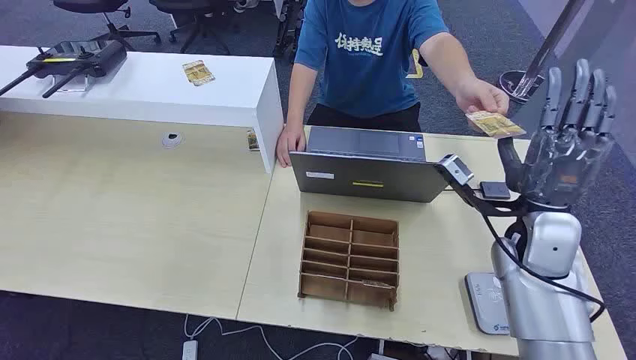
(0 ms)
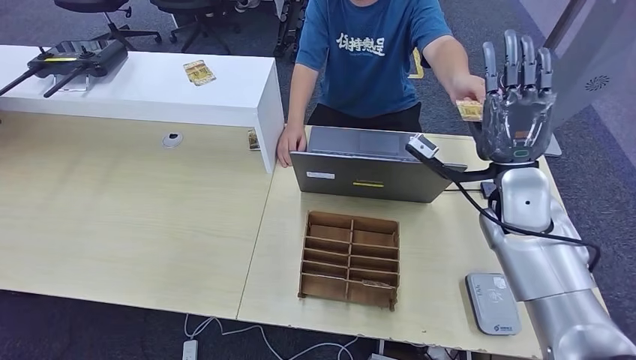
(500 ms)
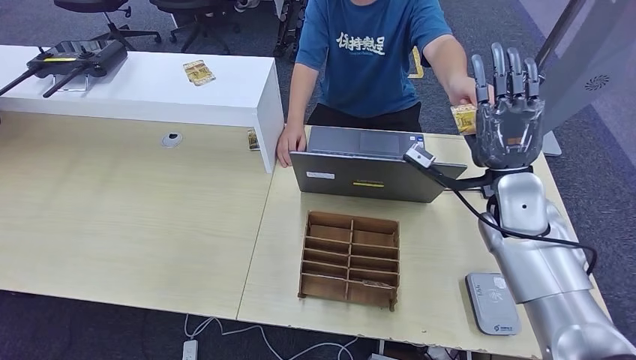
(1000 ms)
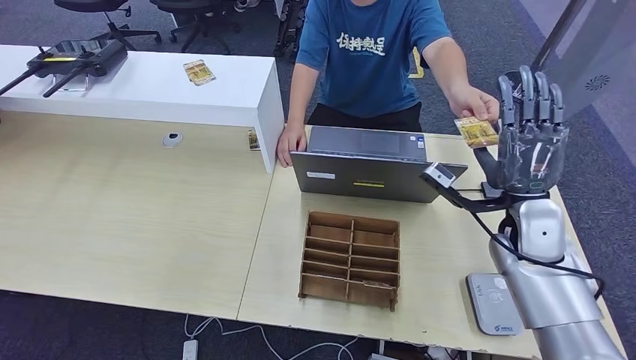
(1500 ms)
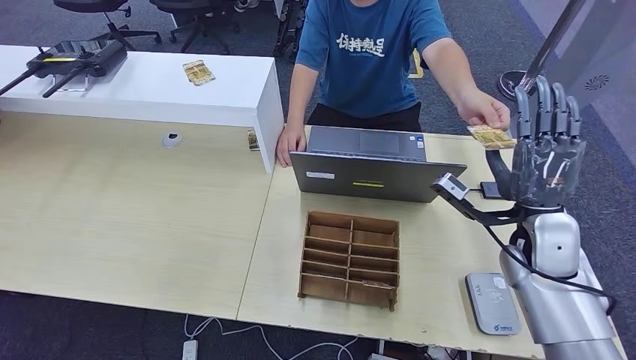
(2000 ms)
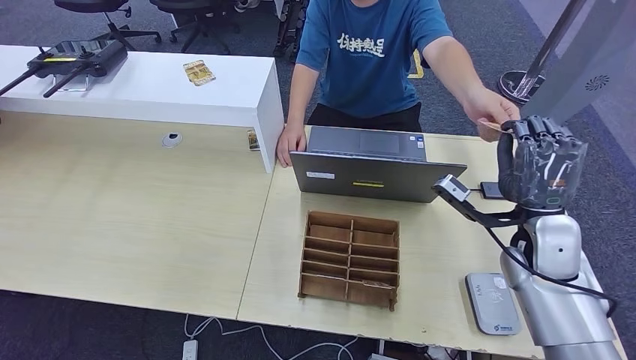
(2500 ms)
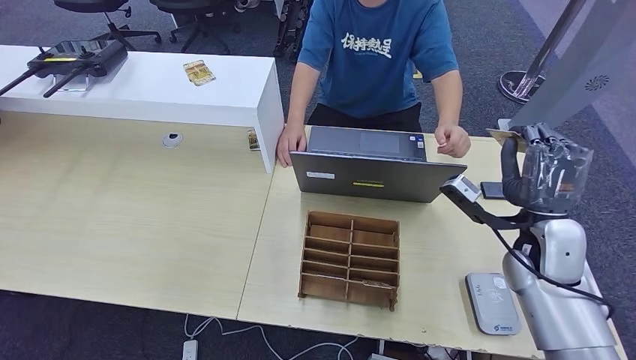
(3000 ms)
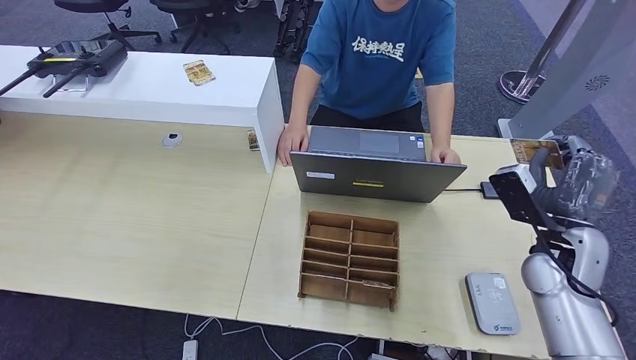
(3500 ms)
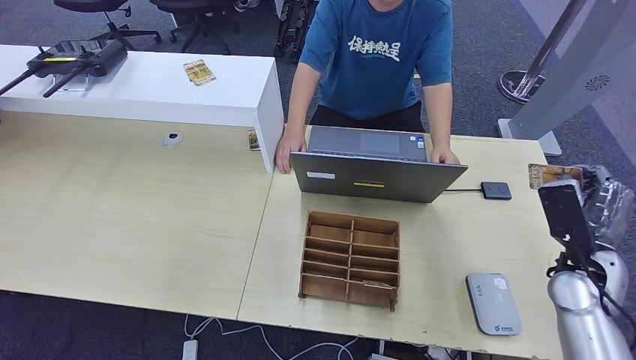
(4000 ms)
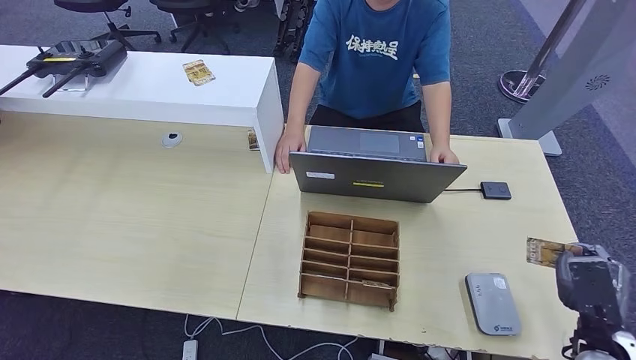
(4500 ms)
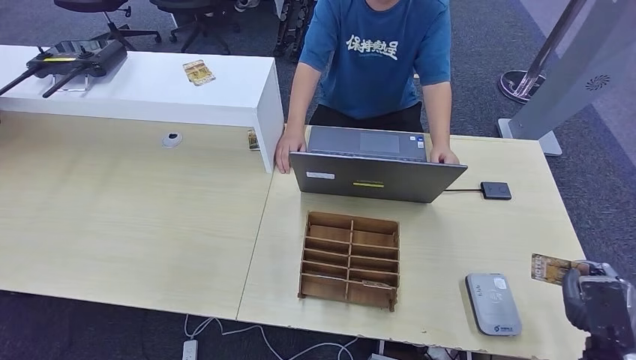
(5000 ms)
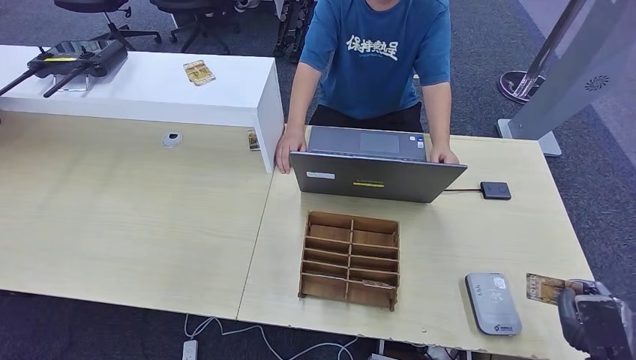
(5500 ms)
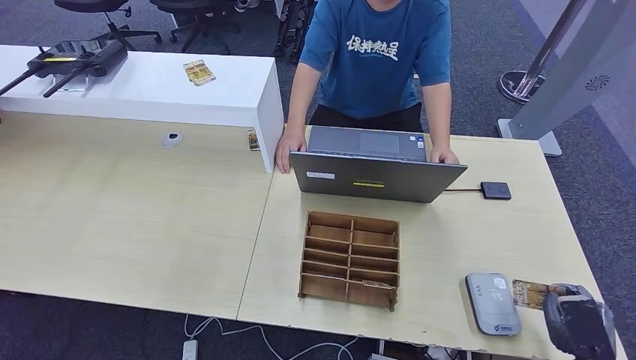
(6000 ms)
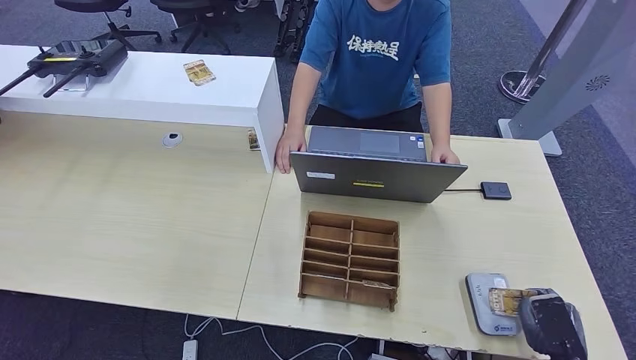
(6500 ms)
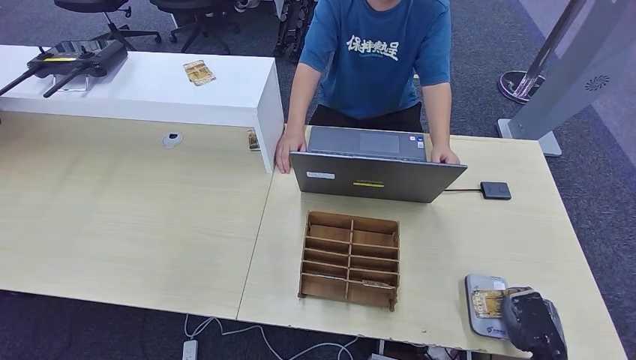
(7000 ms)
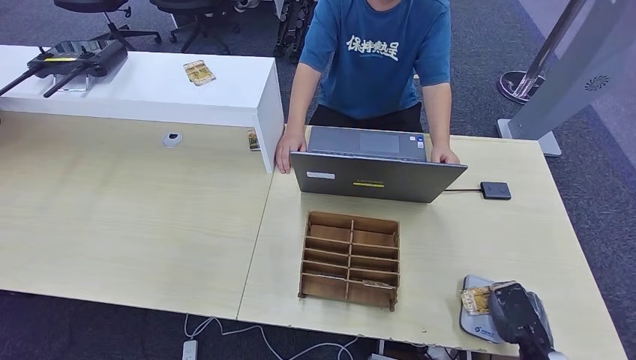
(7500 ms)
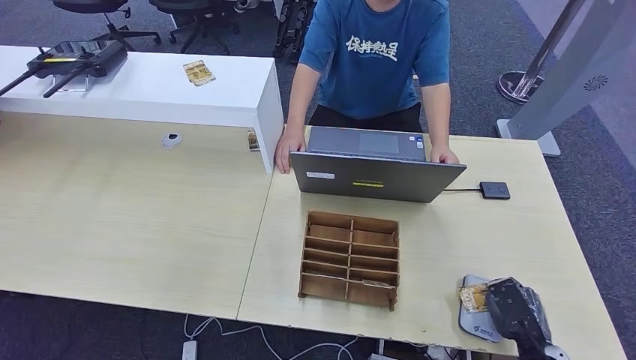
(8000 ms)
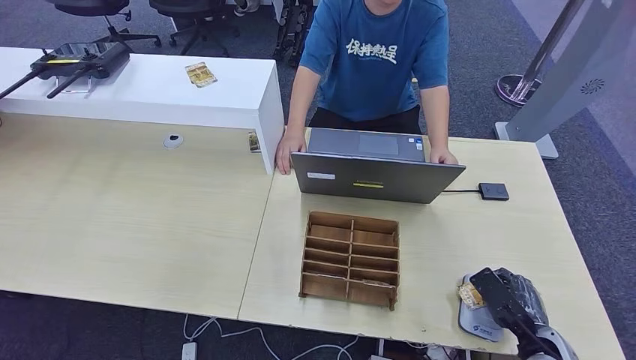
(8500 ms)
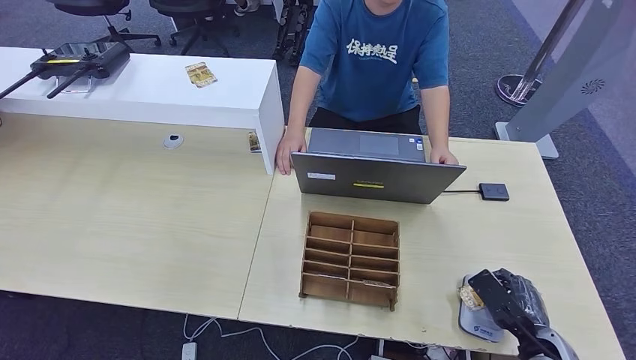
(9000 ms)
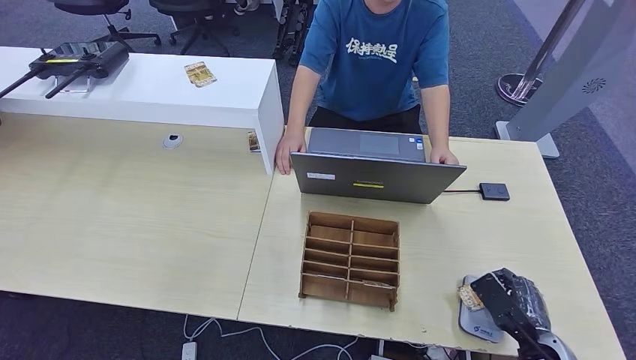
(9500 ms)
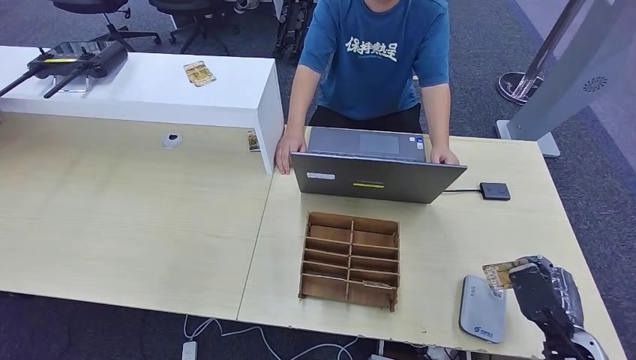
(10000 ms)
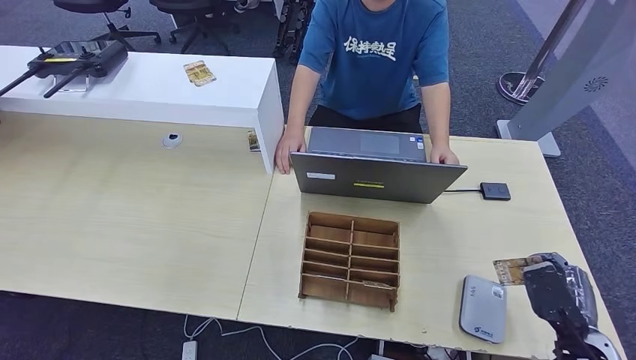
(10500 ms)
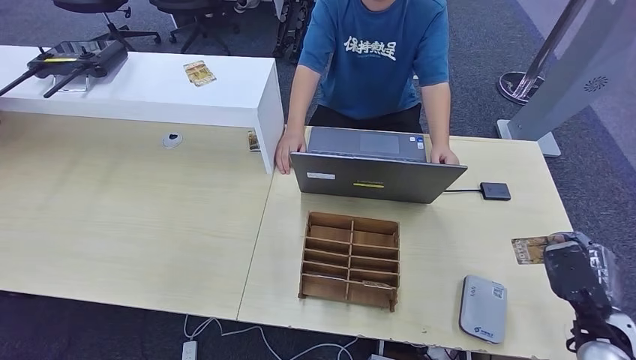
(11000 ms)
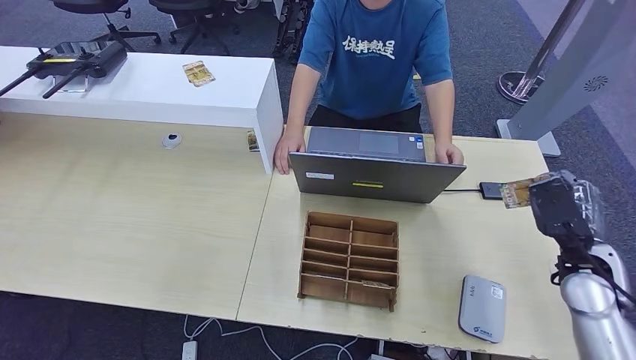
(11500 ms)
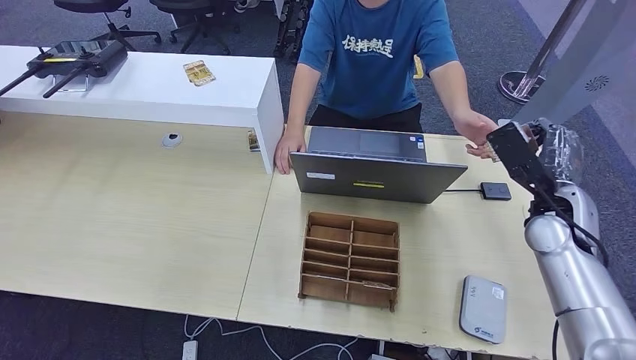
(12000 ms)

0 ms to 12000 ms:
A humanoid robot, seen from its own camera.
Step, 0 ms to 3000 ms: Take the ID card from the person's hand.
Step, 4000 ms to 11500 ms: Place the ID card on the card reader.
2000 ms to 4000 ms: The right hand travels to the right and downward by about 10 cm.
4000 ms to 6000 ms: The right hand moves backward and downward, approximately 20 cm.
6000 ms to 8000 ms: The right hand heads to the left, covering roughly 5 cm.
8000 ms to 10000 ms: The right hand shifts by about 5 cm.
10000 ms to 12000 ms: The right hand heads forward and upward, covering approximately 25 cm.

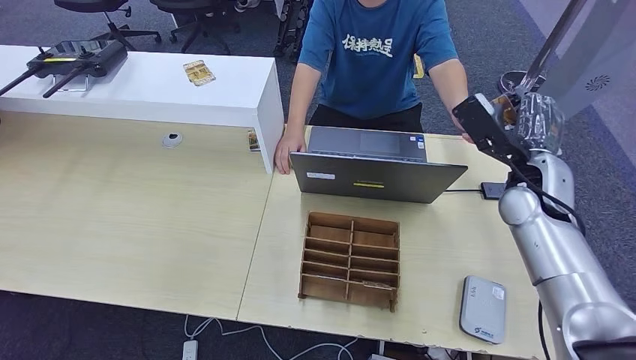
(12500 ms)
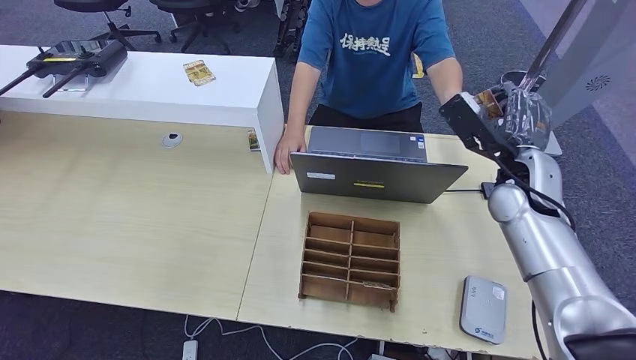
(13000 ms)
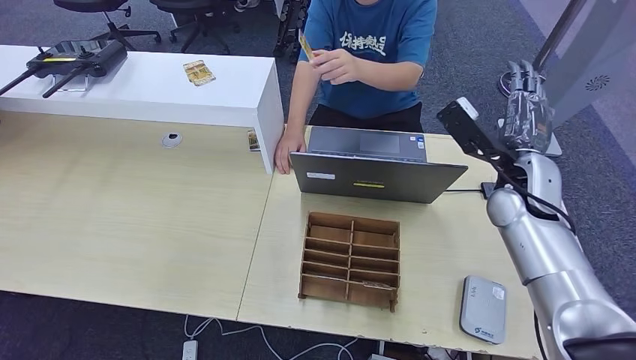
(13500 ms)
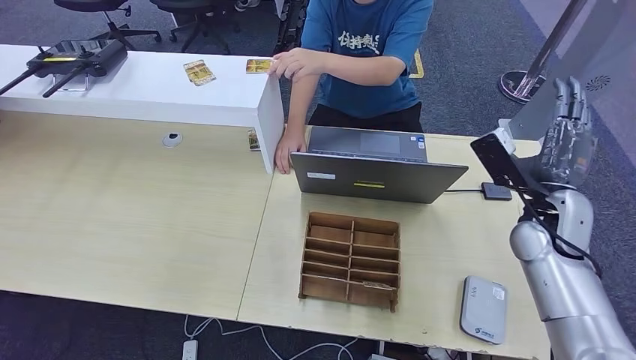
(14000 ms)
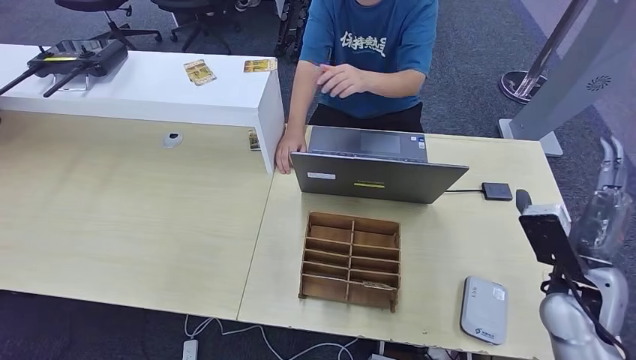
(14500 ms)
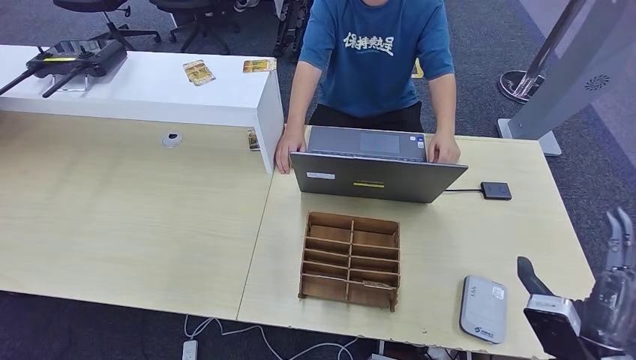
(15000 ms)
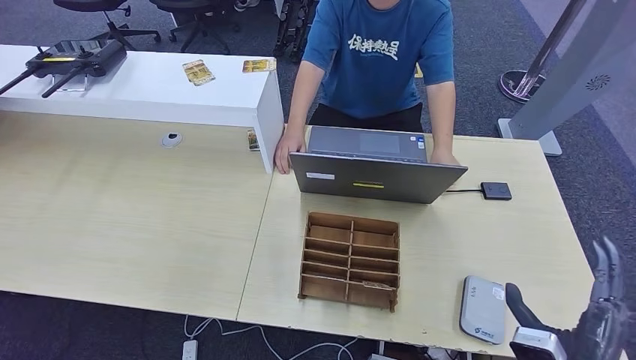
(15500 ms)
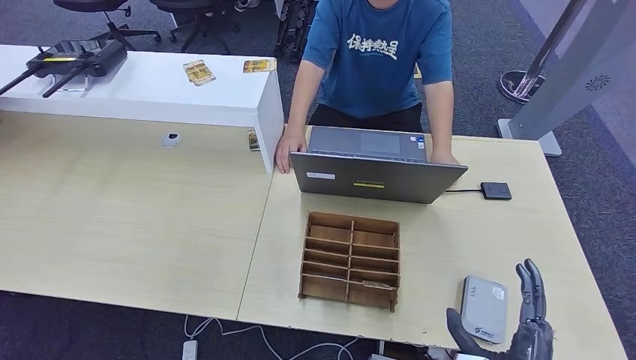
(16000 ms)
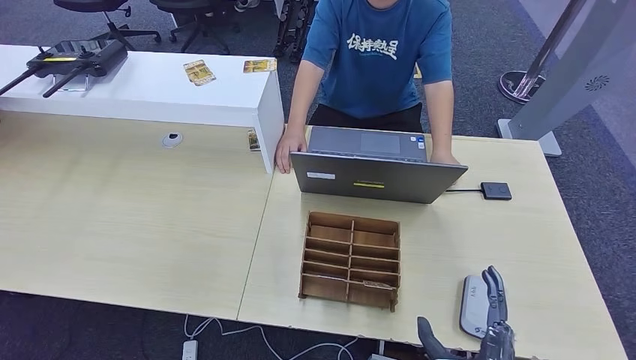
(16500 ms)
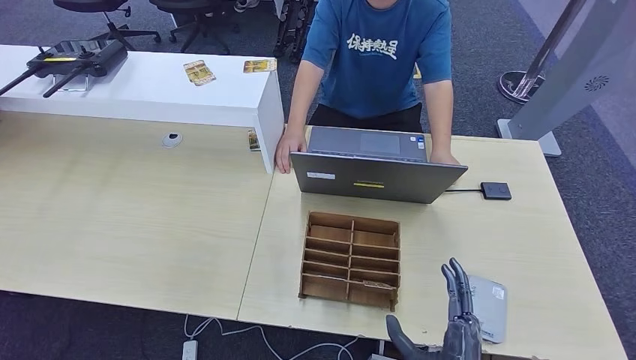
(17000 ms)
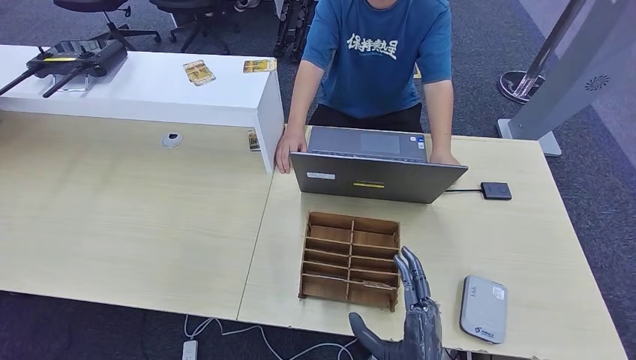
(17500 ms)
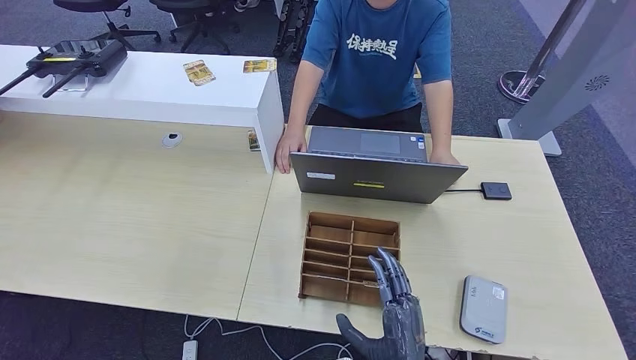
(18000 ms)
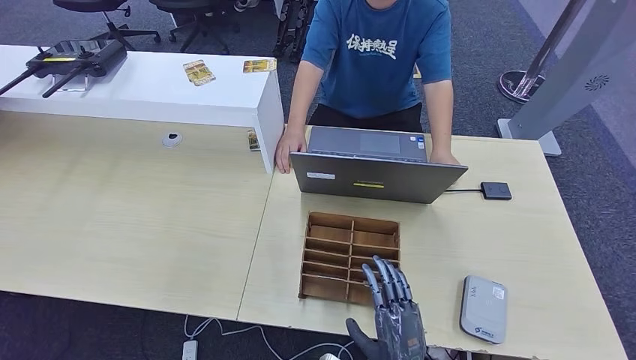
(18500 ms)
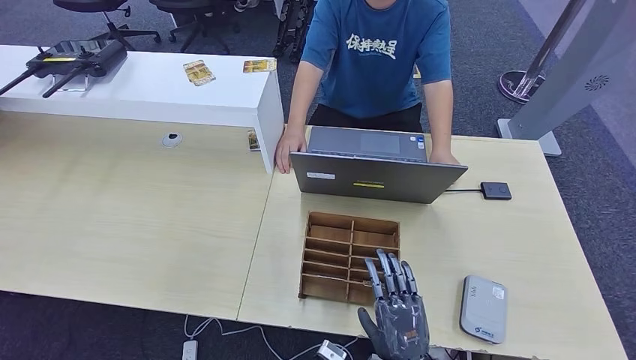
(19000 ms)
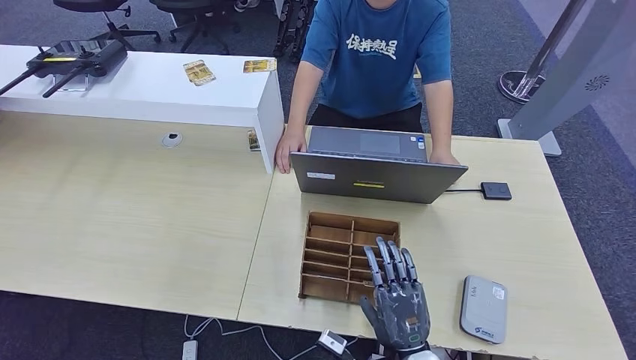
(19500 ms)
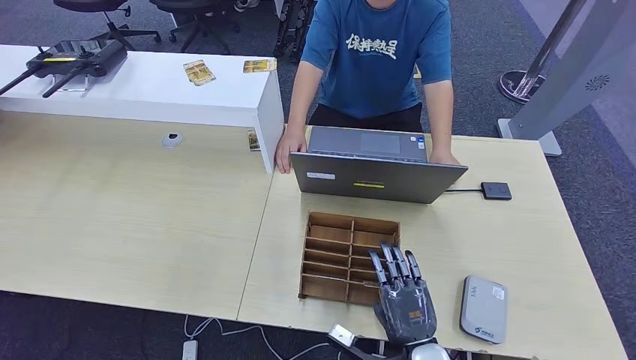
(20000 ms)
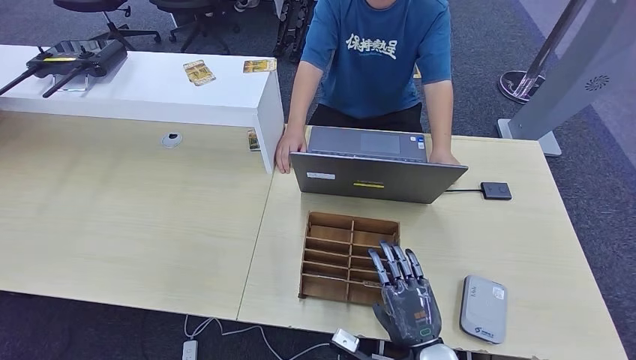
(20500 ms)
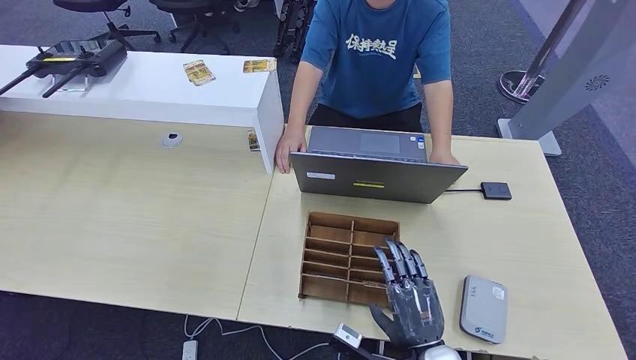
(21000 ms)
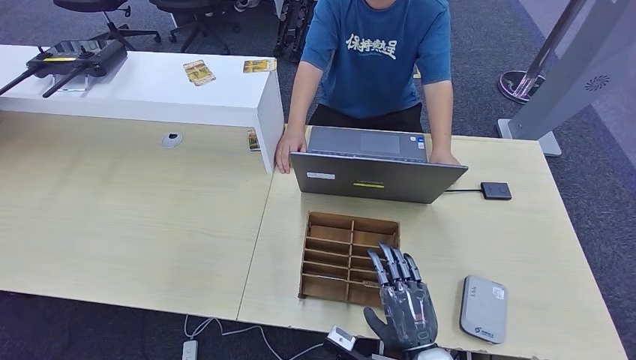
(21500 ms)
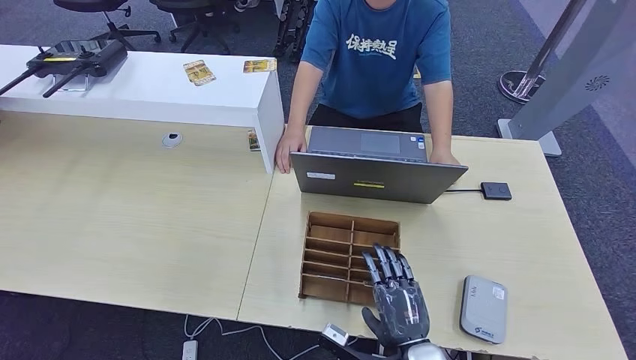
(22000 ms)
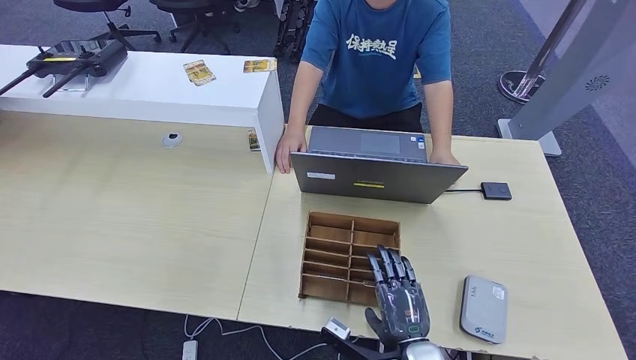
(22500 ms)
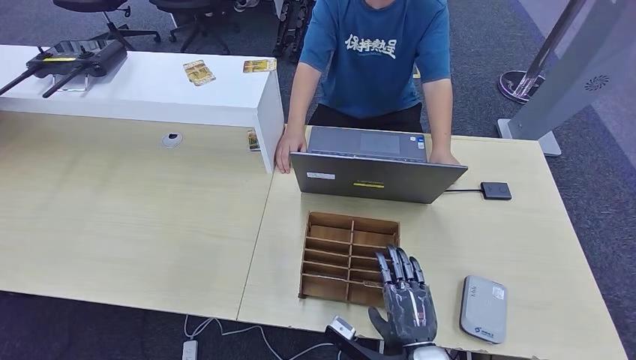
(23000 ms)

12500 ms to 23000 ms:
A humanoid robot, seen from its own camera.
Step, 12500 ms to 14000 ms: Hand the ID card to the person.
12500 ms to 14500 ms: The right hand heads backward, downward and to the right, covering some 15 cm. Meanwhile the left hand moves some 5 cm.
14500 ms to 16500 ms: The right hand shifts approximately 25 cm backward, to the left and downward.
16500 ms to 19000 ms: The right hand is displaced to the left by roughly 10 cm.
19000 ms to 23000 ms: The hands move only a little.
